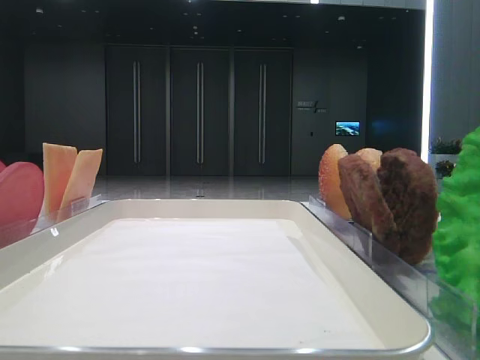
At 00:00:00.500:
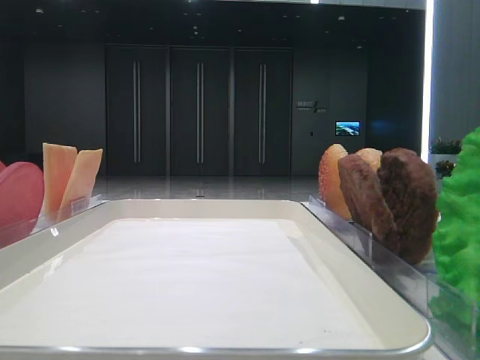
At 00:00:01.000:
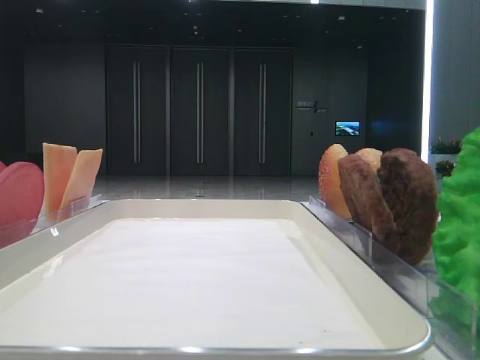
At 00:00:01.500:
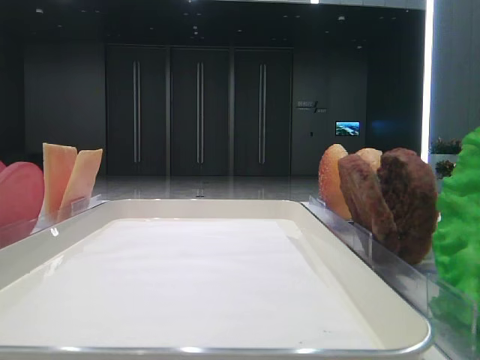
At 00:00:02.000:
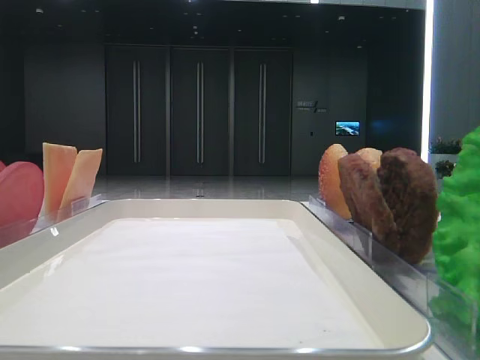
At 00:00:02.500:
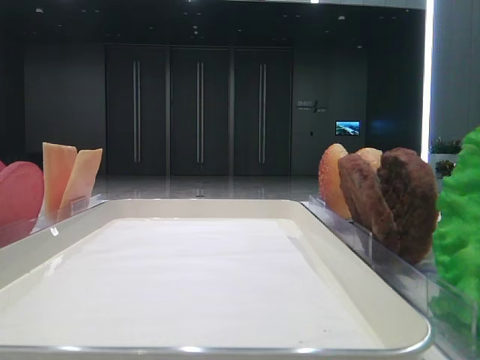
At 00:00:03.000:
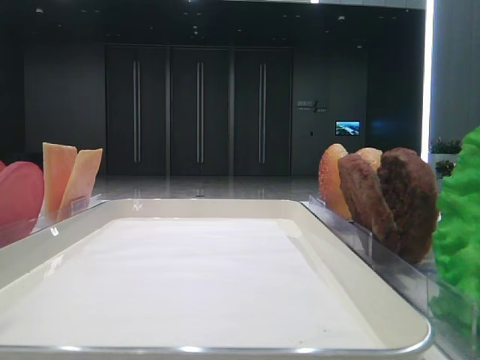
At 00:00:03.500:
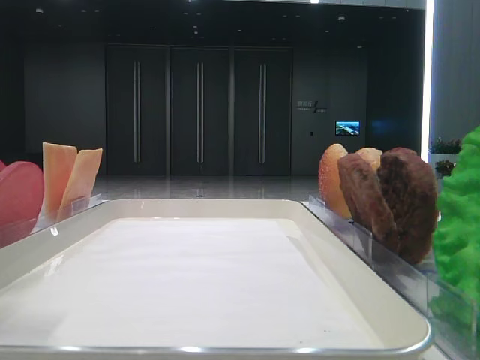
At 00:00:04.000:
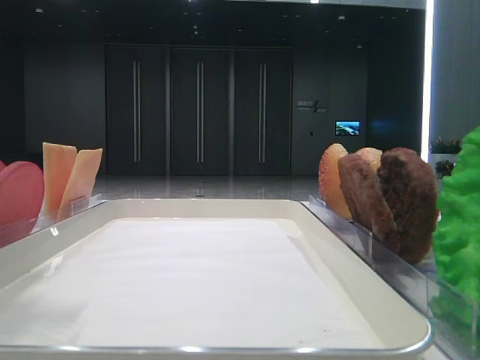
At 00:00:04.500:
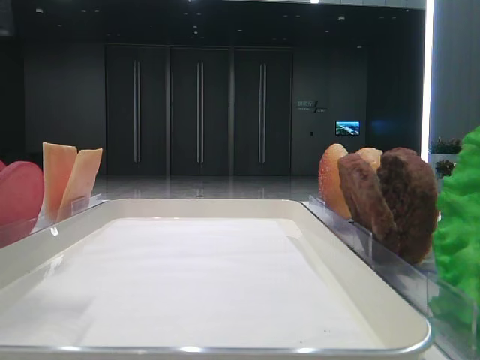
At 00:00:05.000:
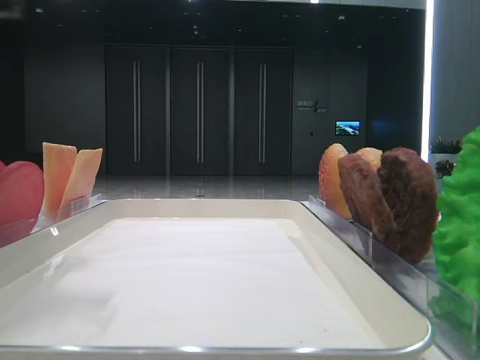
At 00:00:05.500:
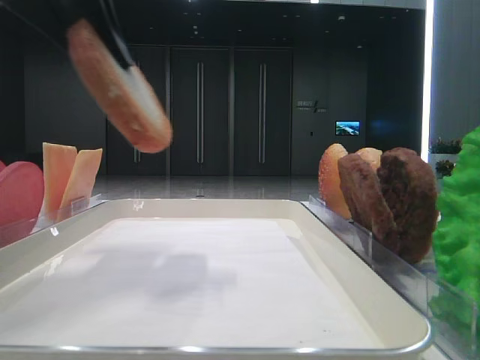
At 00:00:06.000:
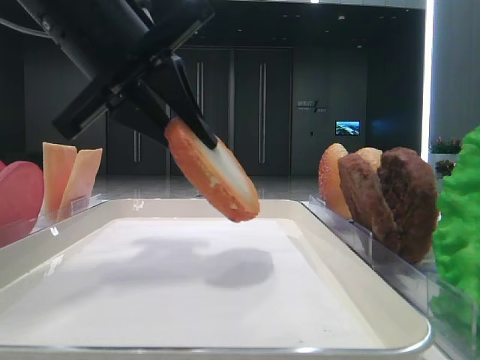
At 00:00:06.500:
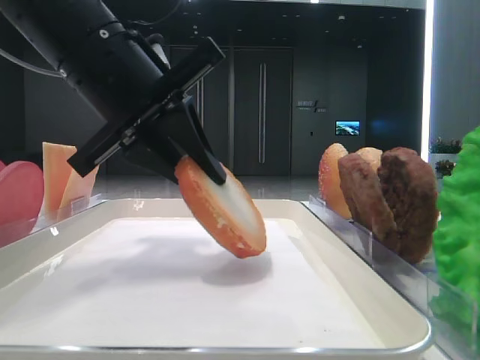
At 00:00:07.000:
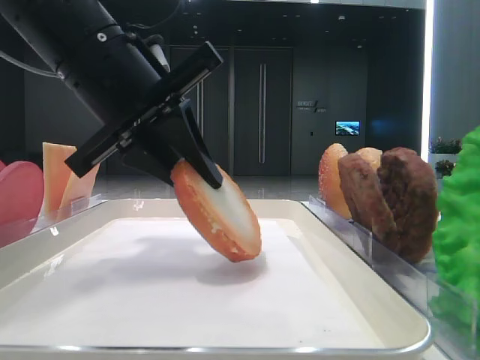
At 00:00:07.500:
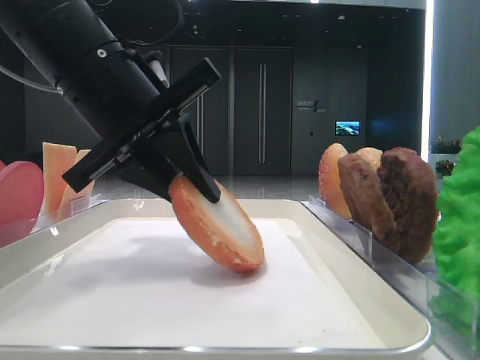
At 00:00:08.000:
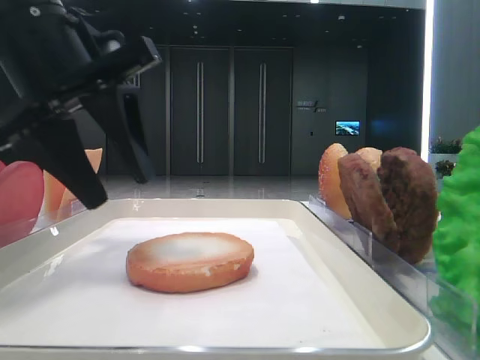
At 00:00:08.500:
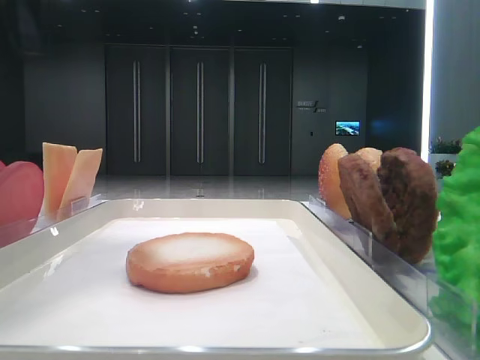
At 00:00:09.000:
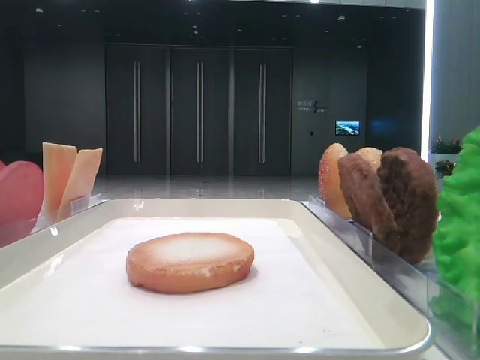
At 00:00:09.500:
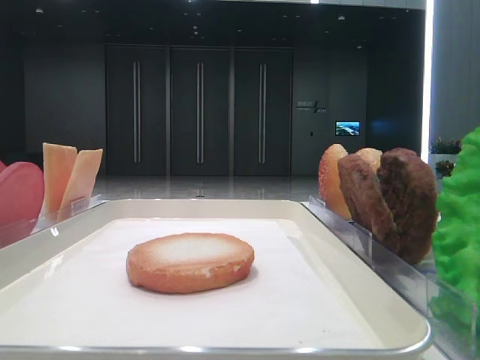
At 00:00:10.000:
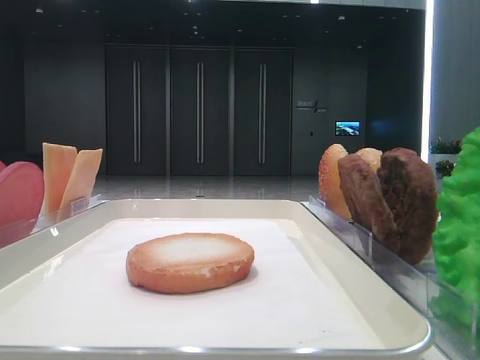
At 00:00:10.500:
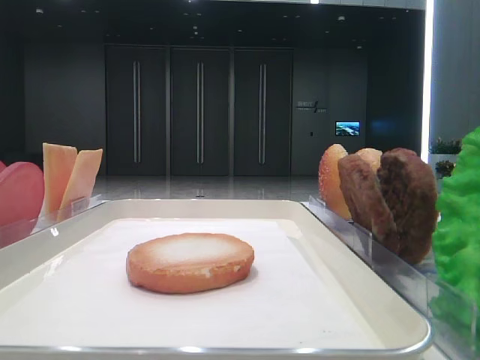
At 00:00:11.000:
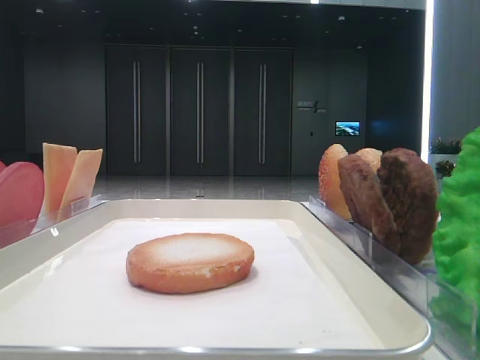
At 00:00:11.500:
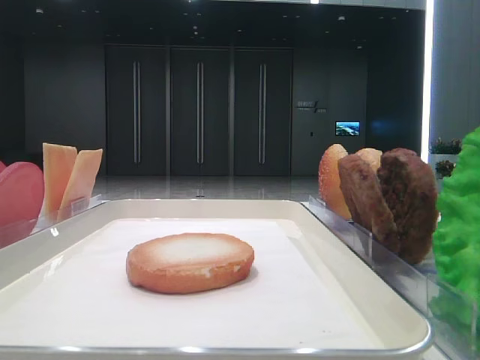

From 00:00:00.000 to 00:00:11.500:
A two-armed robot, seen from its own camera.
Step, from 00:00:04.500 to 00:00:07.500: Place the bread on the tray with the left hand.
From 00:00:02.000 to 00:00:04.000: The left gripper travels to the right and forward by some 10 cm.
From 00:00:04.000 to 00:00:06.000: The left gripper travels to the right and forward by some 15 cm, and closes up.
From 00:00:06.000 to 00:00:07.500: There are only small adjustments of the grippers.
From 00:00:07.500 to 00:00:09.500: The left gripper is displaced to the left, upward and backward by approximately 30 cm, and opens.

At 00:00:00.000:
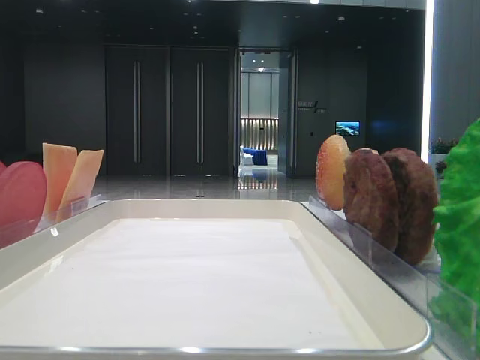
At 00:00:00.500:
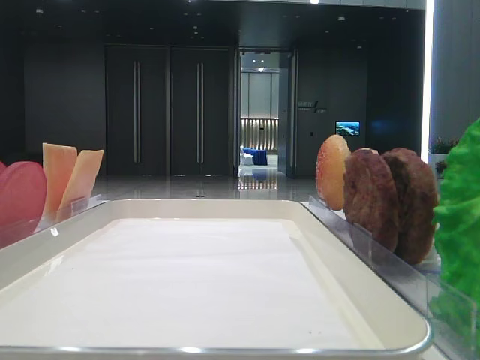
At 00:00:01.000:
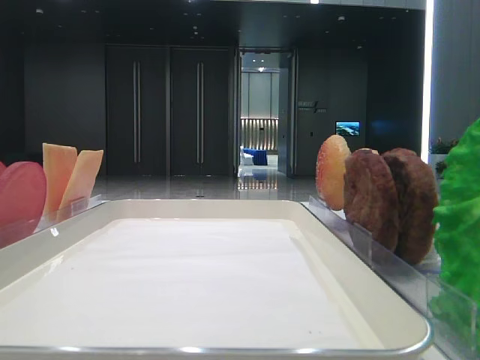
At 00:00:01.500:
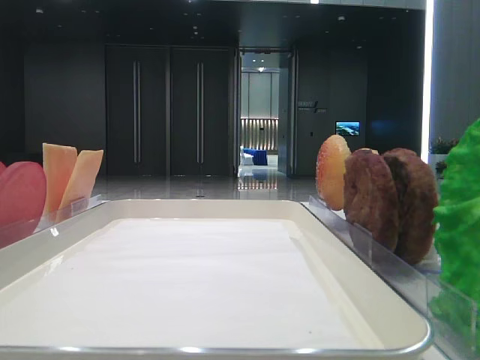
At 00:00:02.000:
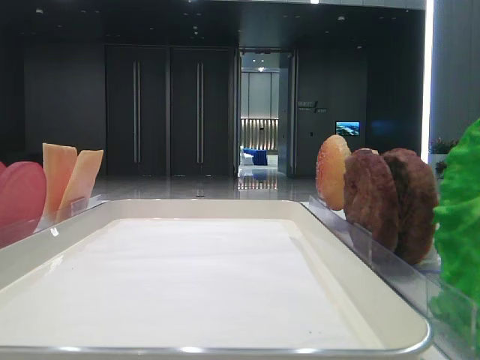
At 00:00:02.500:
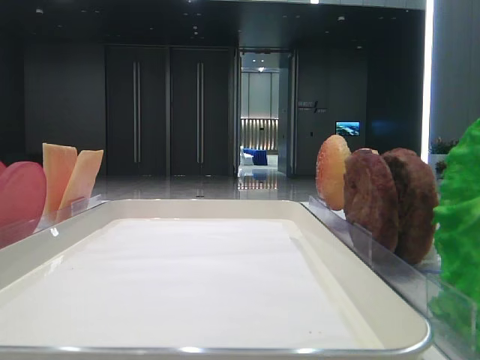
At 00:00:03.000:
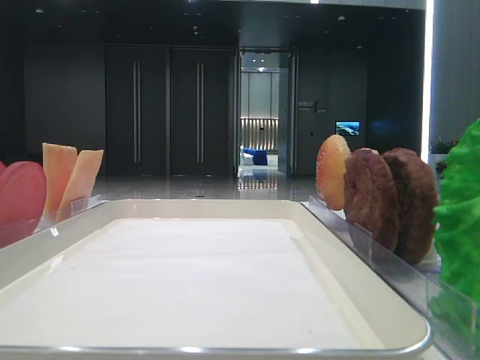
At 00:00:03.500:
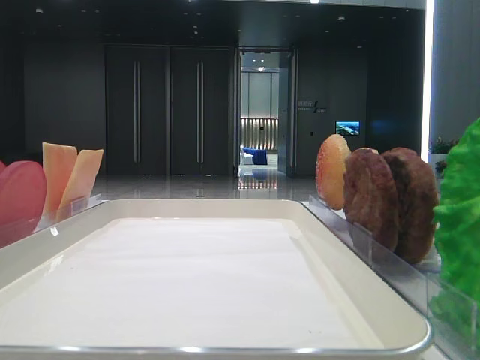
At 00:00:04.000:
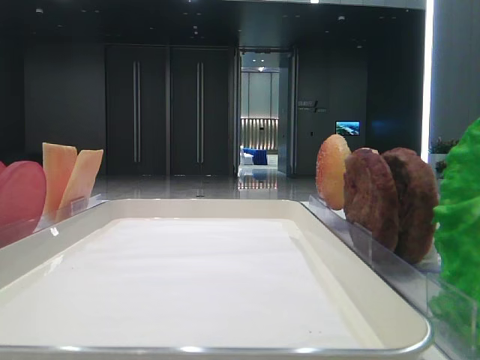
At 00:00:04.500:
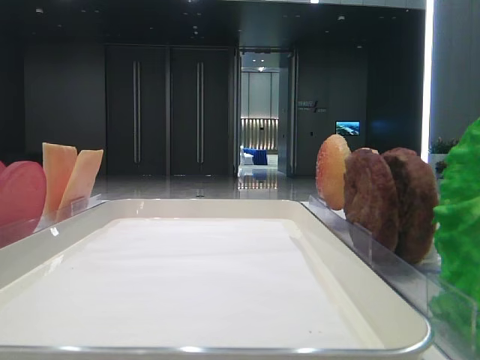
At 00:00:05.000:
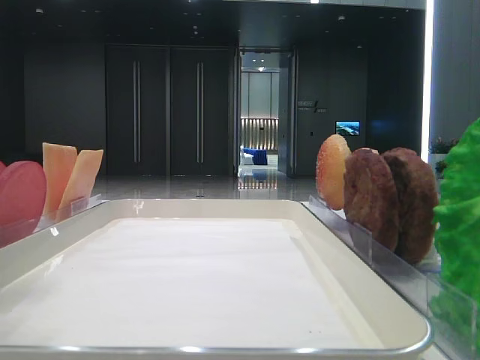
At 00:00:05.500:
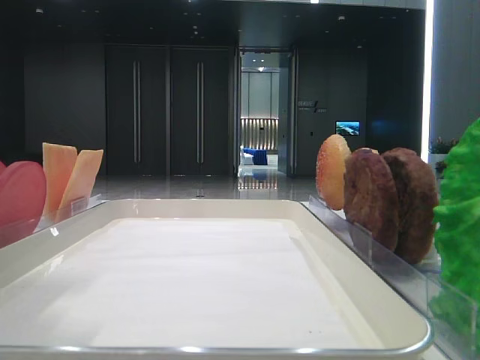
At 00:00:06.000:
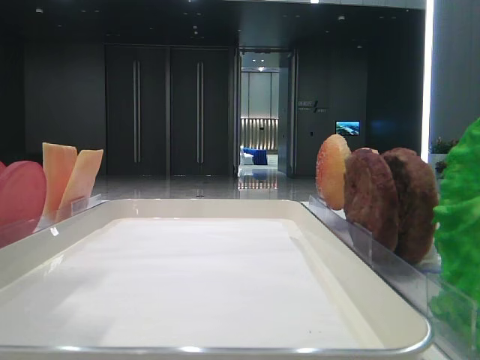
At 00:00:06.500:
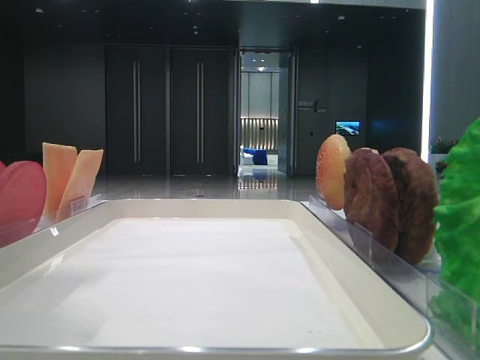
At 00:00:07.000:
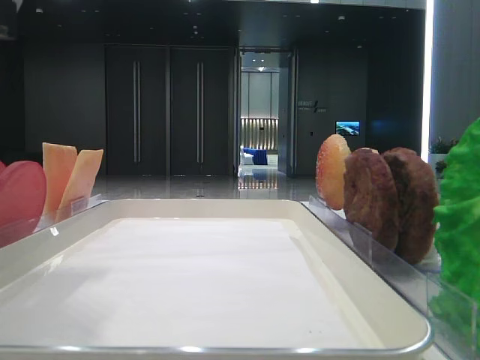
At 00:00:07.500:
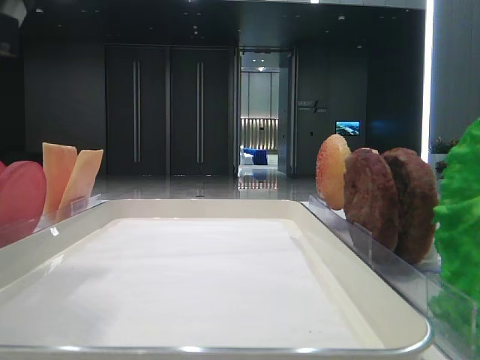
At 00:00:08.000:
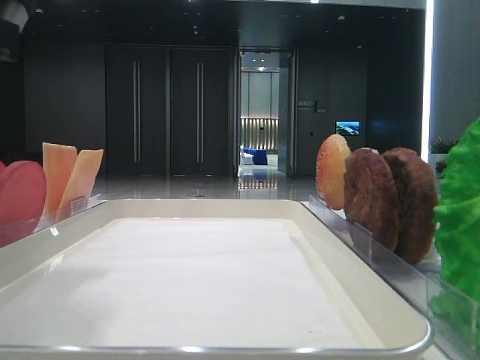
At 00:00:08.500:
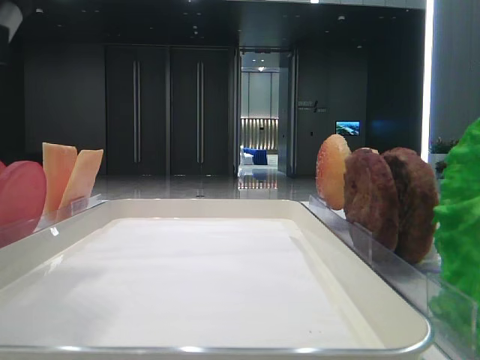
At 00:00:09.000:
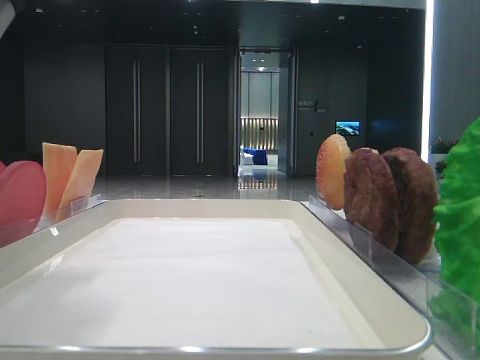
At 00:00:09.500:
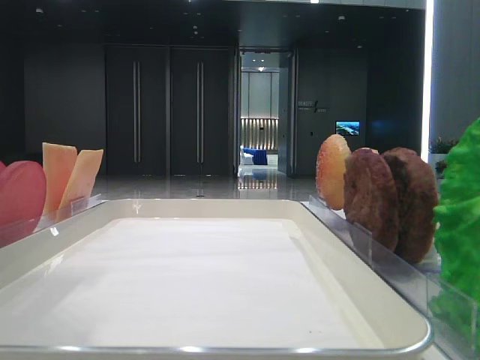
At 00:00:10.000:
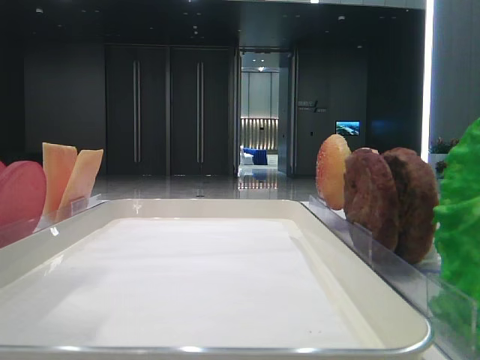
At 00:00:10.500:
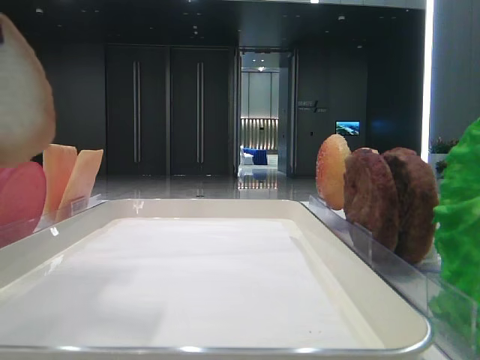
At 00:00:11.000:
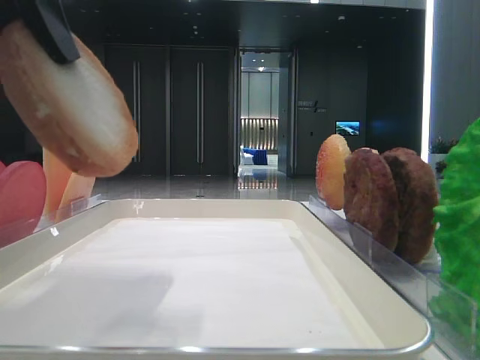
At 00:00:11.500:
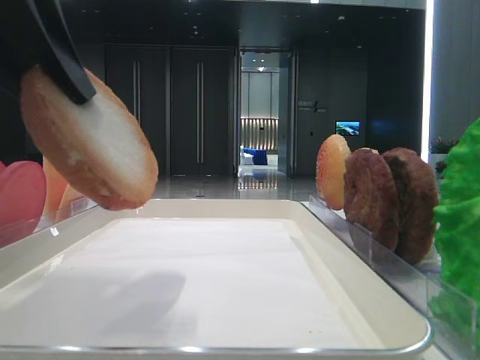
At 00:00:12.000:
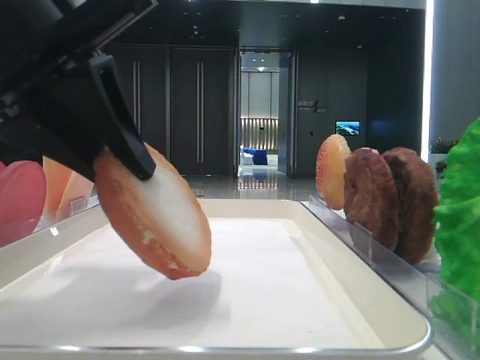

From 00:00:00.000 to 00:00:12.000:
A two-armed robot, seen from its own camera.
From 00:00:04.000 to 00:00:06.000: The left gripper heads to the right, covering about 15 cm.
From 00:00:10.000 to 00:00:12.000: The left gripper heads downward and to the right, covering about 10 cm.

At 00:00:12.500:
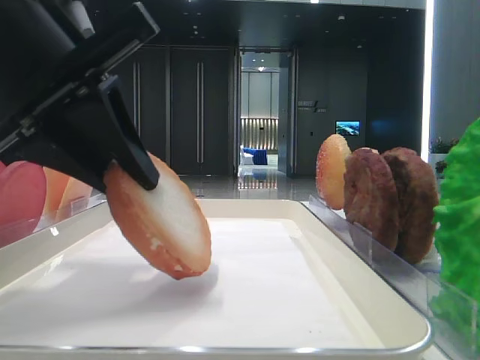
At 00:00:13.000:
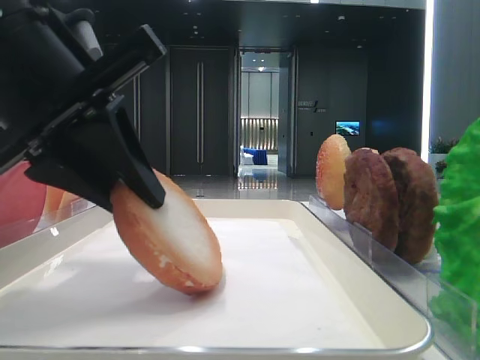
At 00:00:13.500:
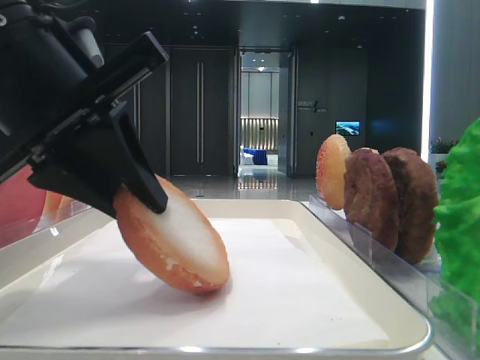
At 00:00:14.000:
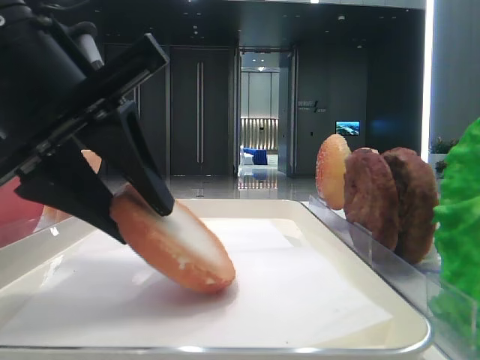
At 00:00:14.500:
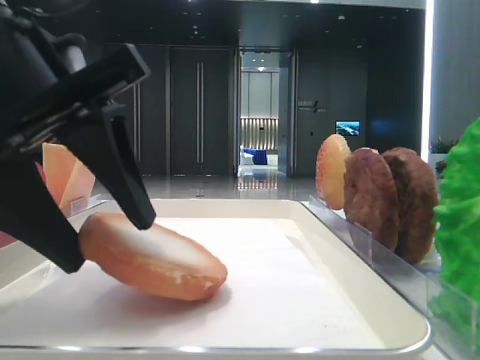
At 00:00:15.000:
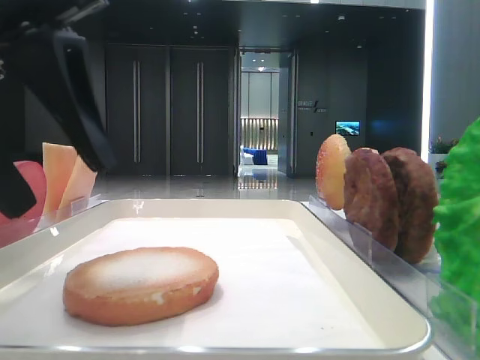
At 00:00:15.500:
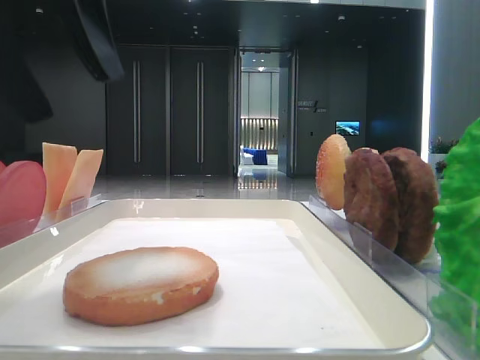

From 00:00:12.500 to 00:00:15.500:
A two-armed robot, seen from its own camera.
Step, from 00:00:12.500 to 00:00:14.500: Place the bread on the tray with the left hand.
From 00:00:12.500 to 00:00:14.000: There are only small adjustments of the grippers.
From 00:00:14.000 to 00:00:15.500: The left gripper heads upward, covering about 10 cm, and opens.
